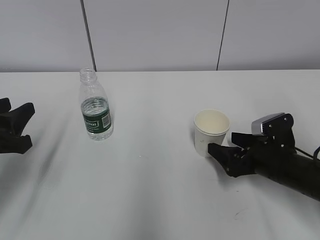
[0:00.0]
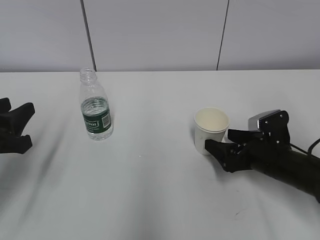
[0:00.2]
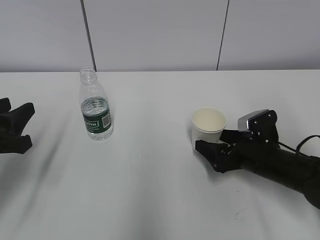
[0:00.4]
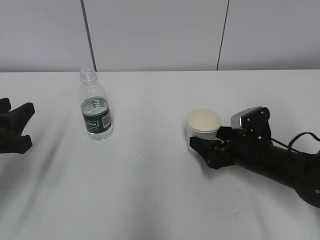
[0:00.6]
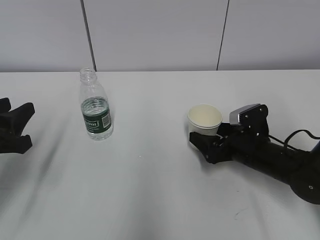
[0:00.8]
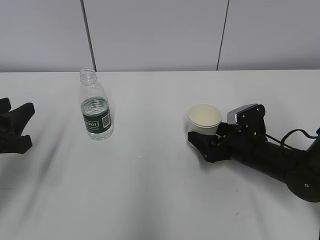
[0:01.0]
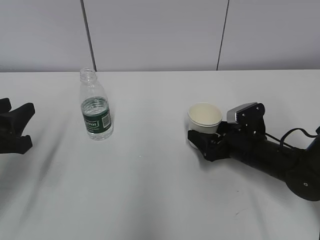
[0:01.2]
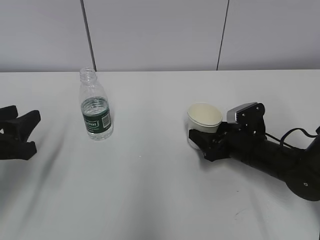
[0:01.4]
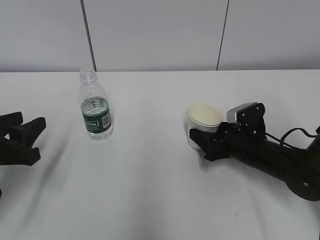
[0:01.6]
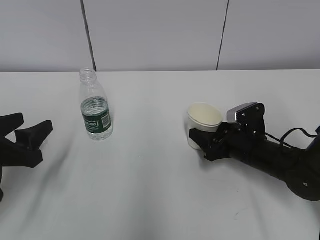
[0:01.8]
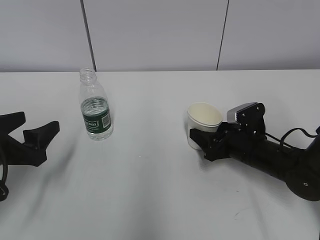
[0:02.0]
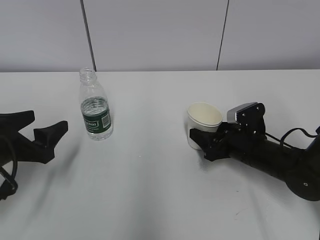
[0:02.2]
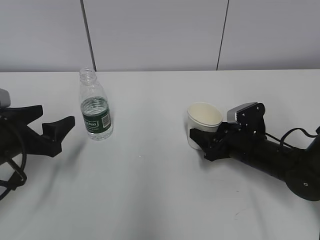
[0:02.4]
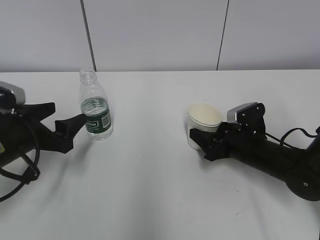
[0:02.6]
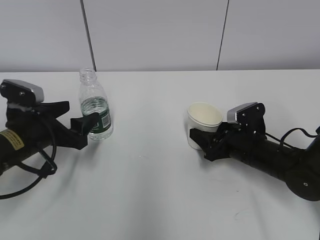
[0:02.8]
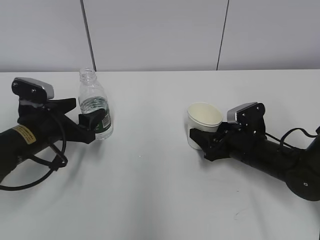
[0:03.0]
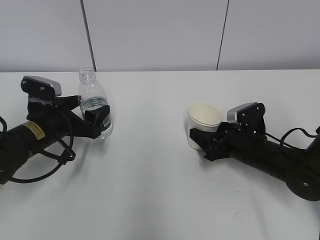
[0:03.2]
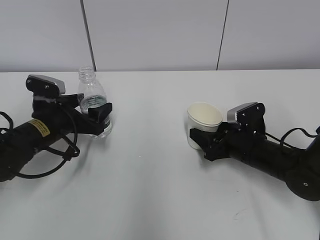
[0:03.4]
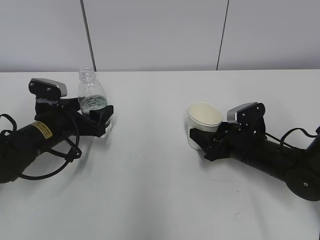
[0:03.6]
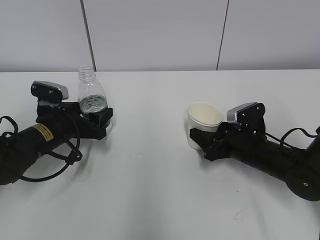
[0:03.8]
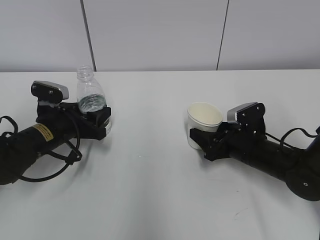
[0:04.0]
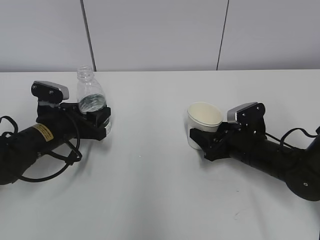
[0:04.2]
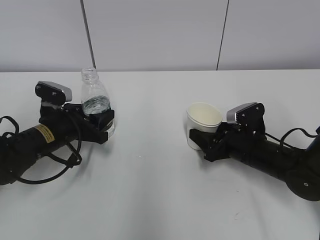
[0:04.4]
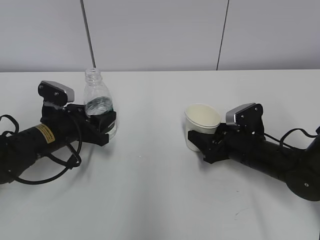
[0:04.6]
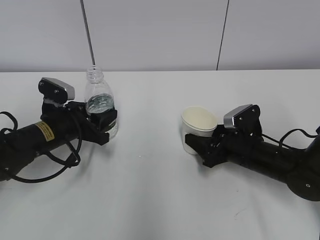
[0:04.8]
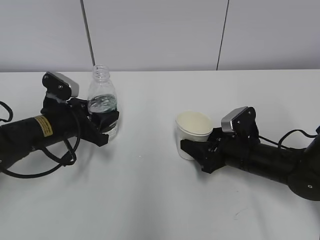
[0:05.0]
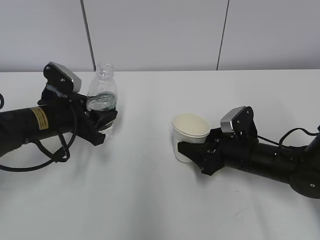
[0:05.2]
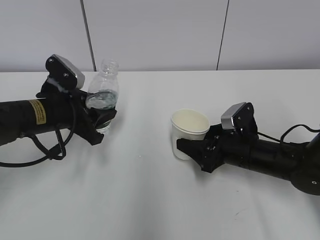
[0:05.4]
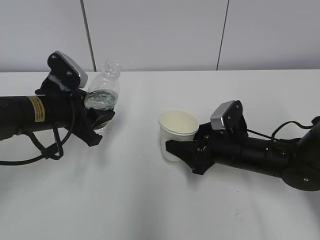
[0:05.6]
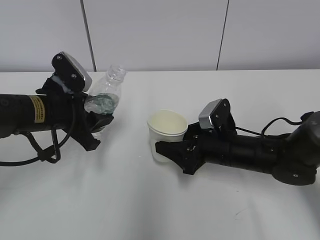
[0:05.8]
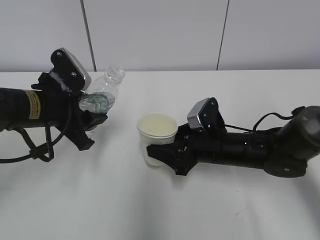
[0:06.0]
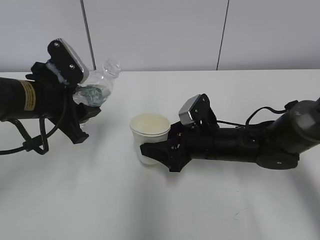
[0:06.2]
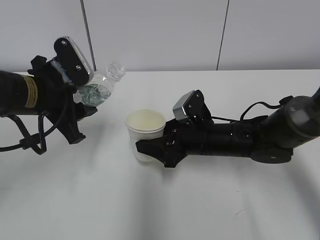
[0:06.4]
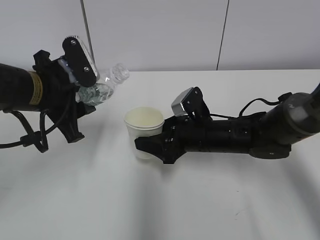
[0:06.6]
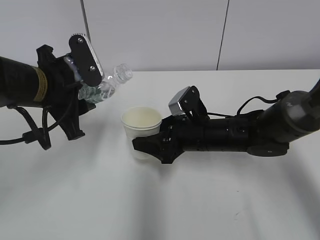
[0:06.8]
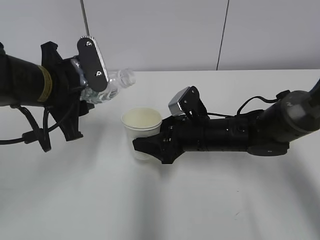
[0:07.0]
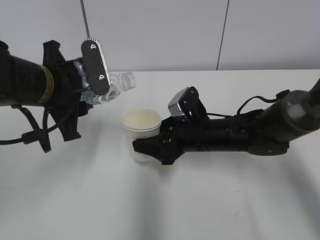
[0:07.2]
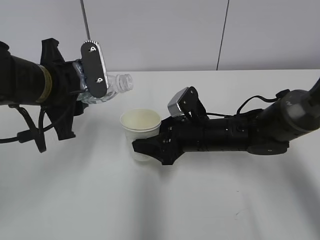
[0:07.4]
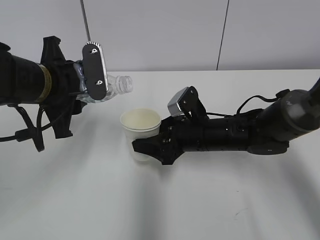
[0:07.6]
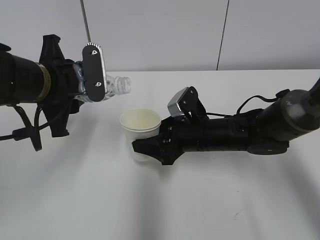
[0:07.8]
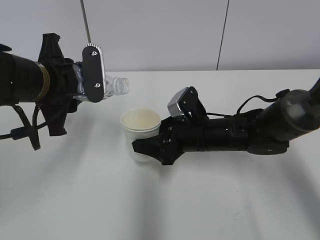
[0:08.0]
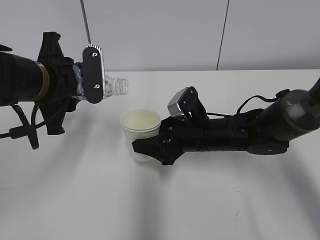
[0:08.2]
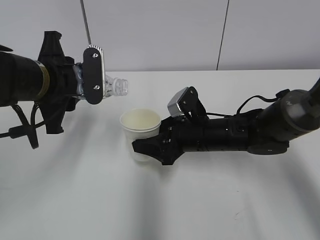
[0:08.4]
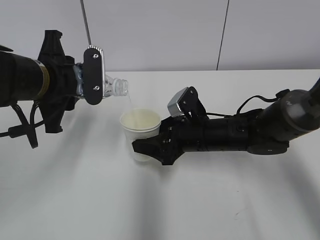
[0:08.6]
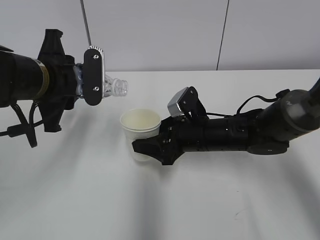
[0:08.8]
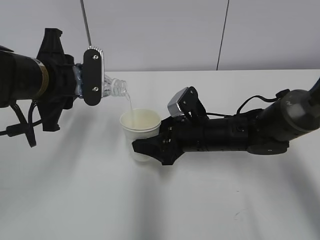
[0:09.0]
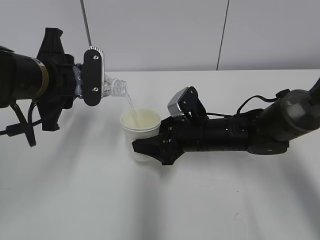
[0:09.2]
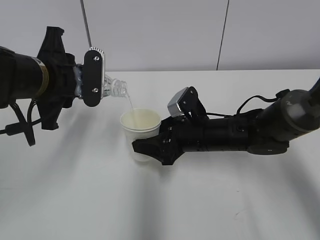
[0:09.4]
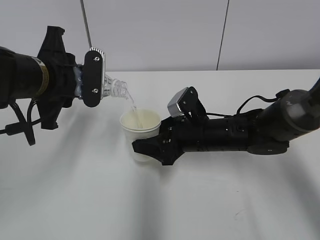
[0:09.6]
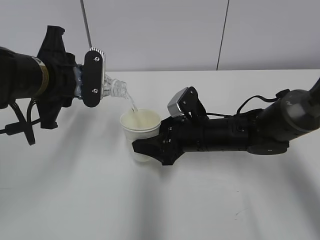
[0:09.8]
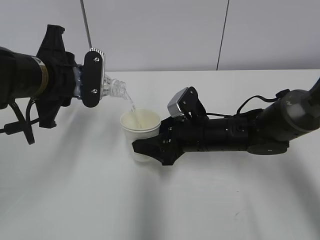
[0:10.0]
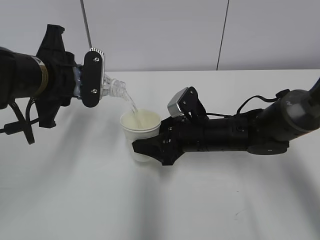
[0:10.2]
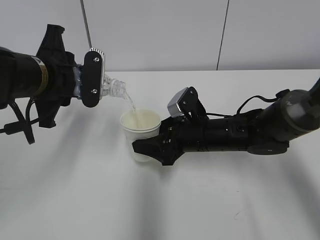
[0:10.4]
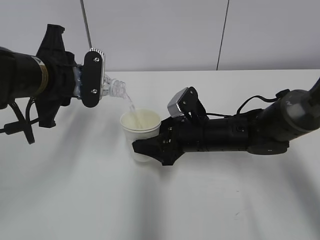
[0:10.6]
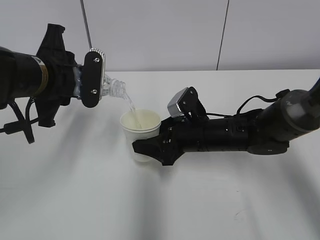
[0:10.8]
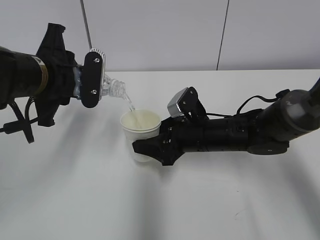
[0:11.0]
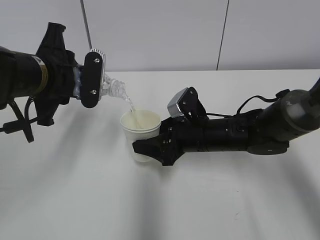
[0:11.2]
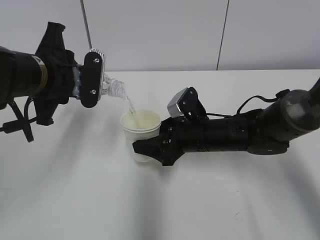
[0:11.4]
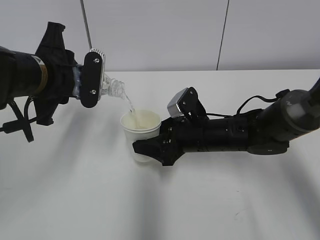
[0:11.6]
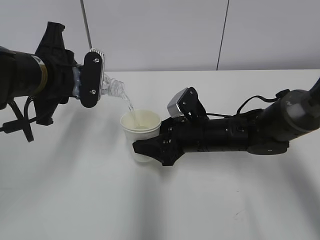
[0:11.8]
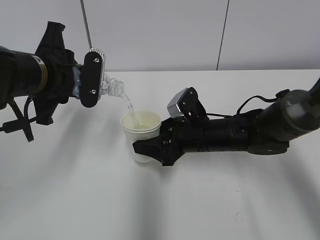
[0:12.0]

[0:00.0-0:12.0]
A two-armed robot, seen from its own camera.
Step, 0:00.0 to 0:02.4: Grab the water bottle with the left hand.
Step, 0:03.0 to 0:05.6: Lift the paper cup with the right hand.
Step, 0:05.8 to 0:09.8: Fill water with the right hand.
Step, 0:05.8 to 0:09.8: Pour water with the left hand.
0:00.0 to 0:01.6: The right gripper travels forward by about 5 cm, and closes.
0:01.6 to 0:03.0: The left gripper is displaced forward and to the right by approximately 10 cm, and opens up.
0:03.0 to 0:04.4: The left gripper closes.
0:04.4 to 0:06.0: The left gripper travels upward by about 10 cm; the right gripper travels to the left by approximately 5 cm.
0:06.0 to 0:07.6: The left gripper goes approximately 5 cm upward.
0:07.6 to 0:10.4: There are only small adjustments of the grippers.
0:10.4 to 0:12.0: Both grippers stay about where they are.

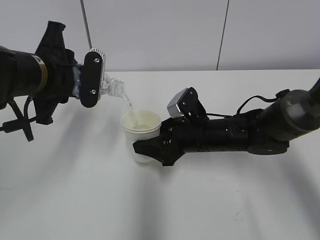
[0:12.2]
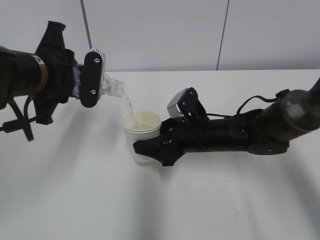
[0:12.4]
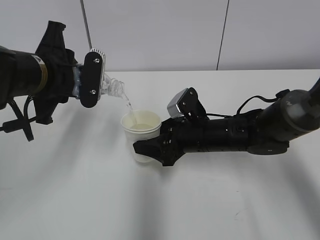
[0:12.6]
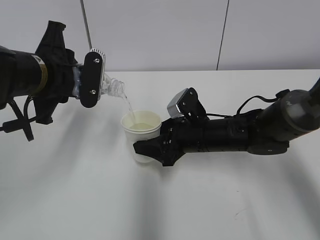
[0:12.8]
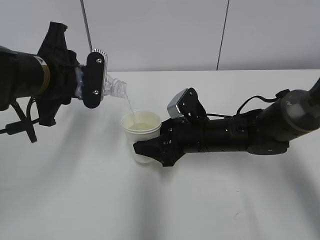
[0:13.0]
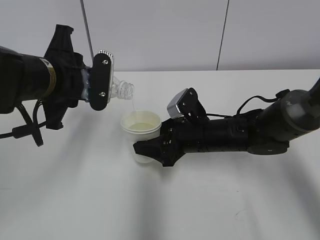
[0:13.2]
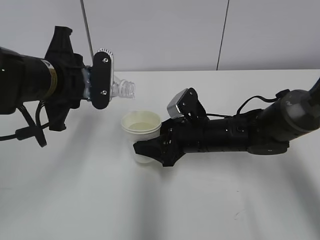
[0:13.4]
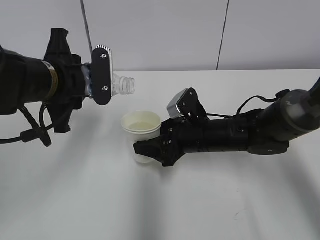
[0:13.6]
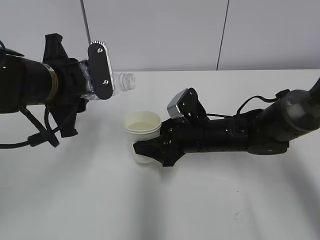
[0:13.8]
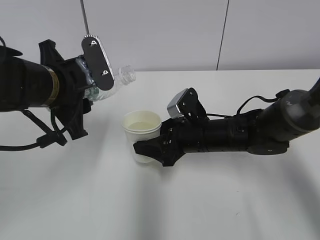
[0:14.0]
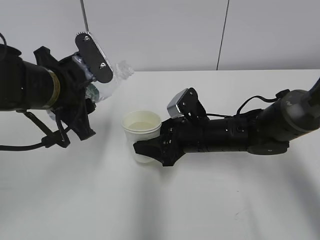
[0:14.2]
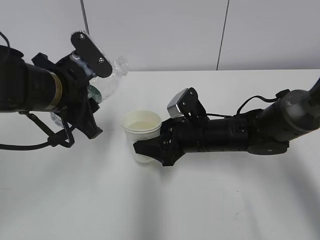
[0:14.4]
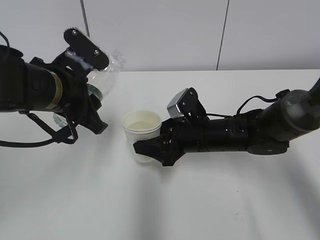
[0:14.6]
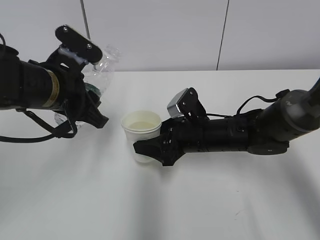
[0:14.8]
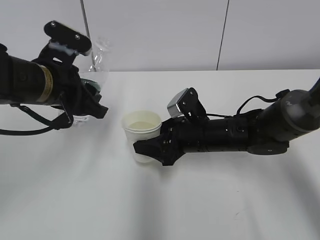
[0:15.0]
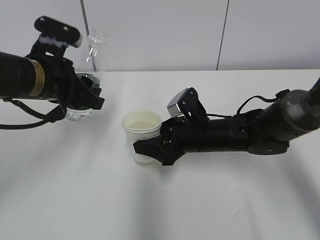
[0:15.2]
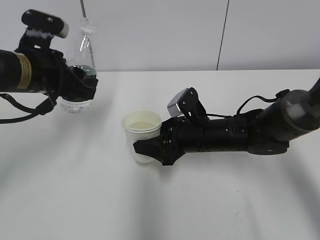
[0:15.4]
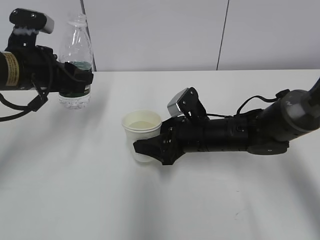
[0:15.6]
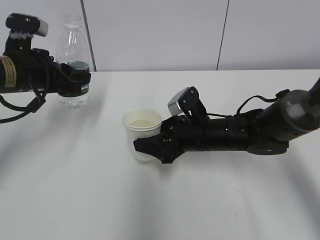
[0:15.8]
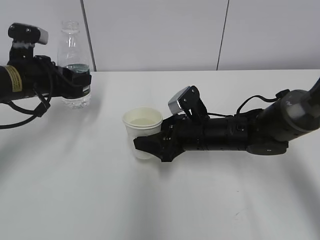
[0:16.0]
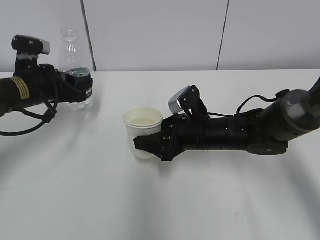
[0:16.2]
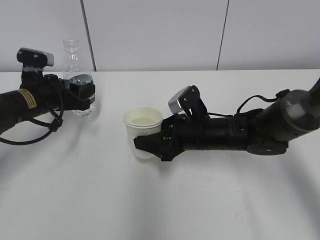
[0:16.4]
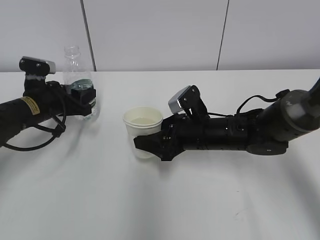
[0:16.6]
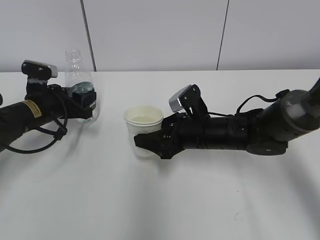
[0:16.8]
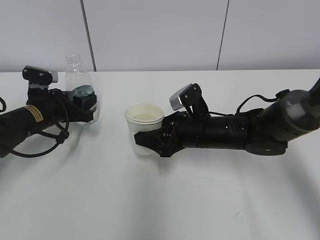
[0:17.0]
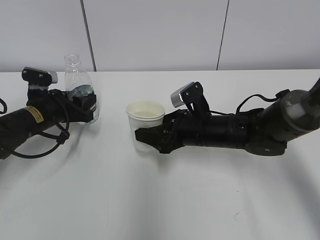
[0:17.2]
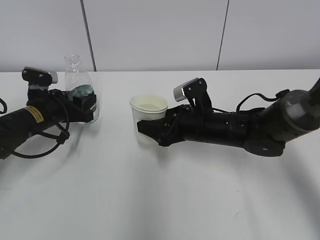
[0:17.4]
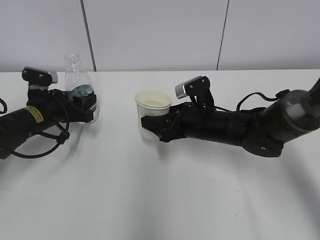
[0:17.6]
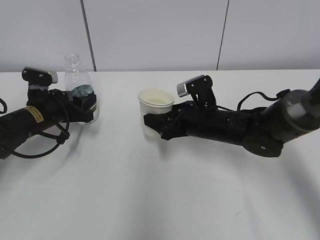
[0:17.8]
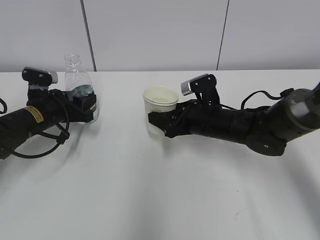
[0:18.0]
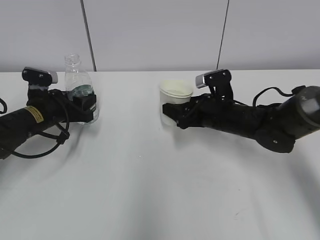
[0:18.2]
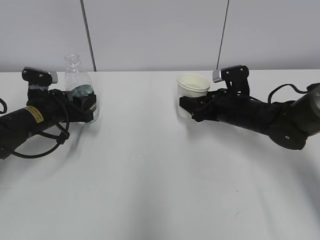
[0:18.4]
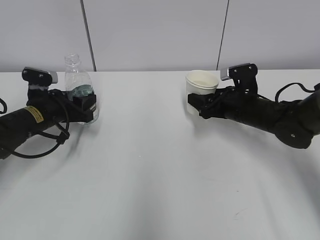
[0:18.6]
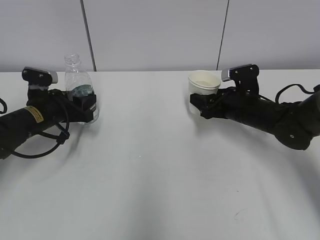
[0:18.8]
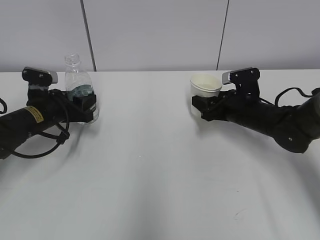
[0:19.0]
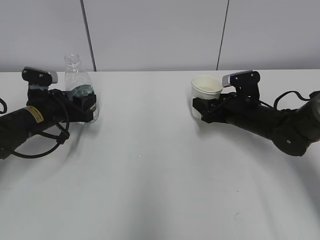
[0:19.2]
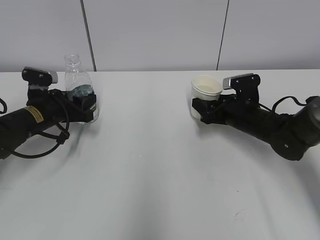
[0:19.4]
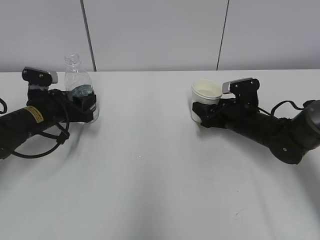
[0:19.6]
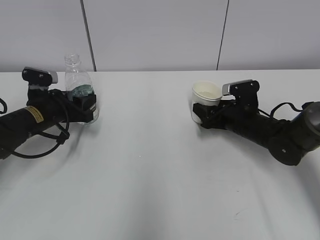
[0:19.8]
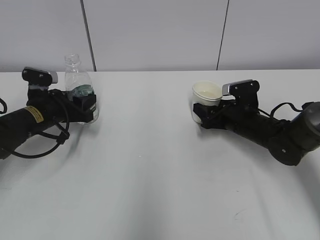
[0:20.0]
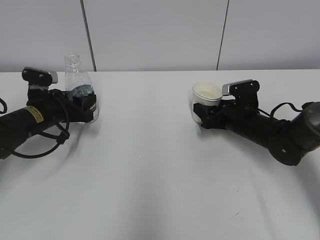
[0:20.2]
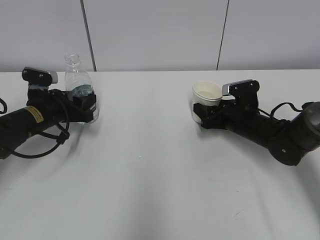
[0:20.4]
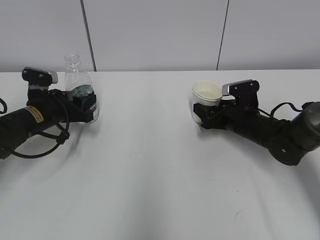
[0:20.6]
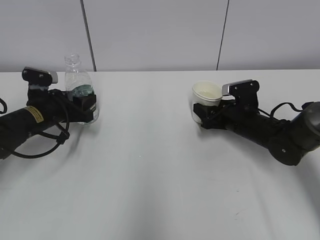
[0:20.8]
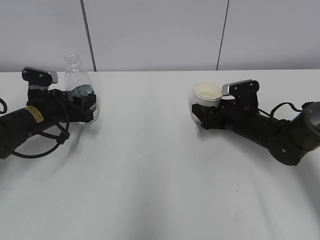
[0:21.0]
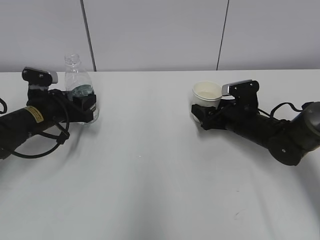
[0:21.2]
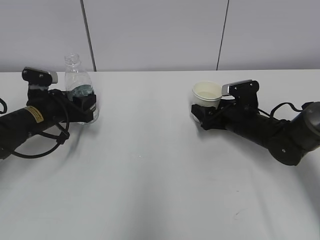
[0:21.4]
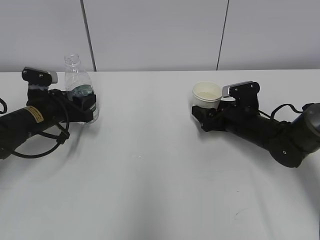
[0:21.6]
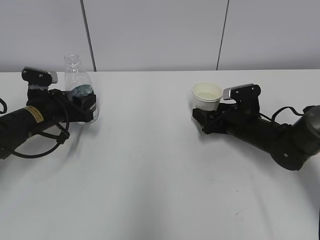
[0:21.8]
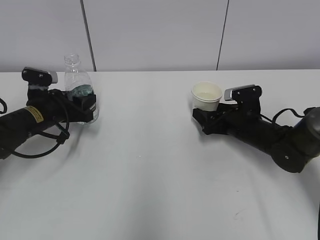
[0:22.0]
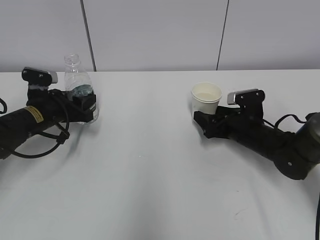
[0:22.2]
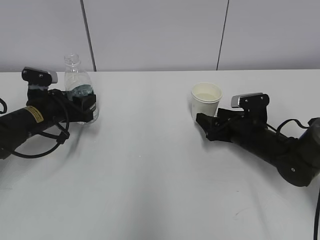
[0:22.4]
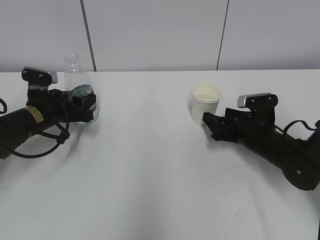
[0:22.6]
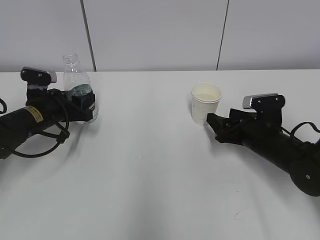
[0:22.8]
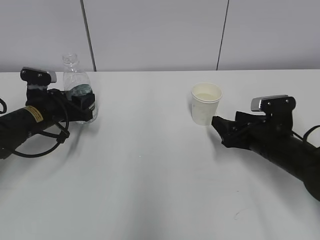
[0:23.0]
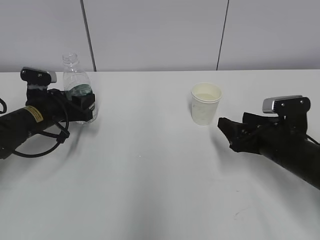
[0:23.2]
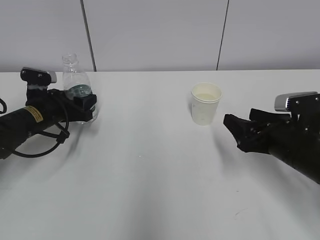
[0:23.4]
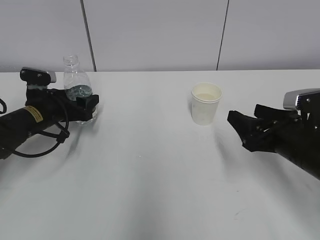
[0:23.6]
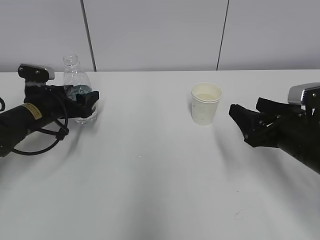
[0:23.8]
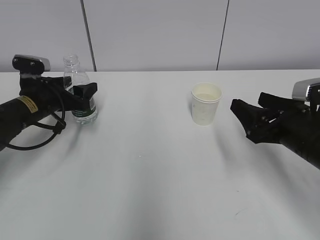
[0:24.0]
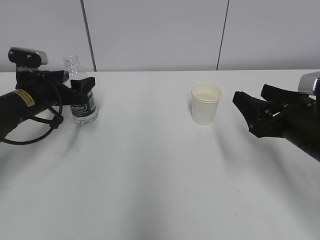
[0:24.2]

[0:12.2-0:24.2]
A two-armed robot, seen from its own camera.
0:12.2 to 0:13.8: The grippers stay close to where they were, moving slightly.
0:15.2 to 0:16.6: The left gripper travels downward, forward and to the left by roughly 15 cm.
0:16.6 to 0:18.2: The right gripper changes place by roughly 5 cm.
0:18.2 to 0:19.8: The right gripper heads to the right, covering approximately 5 cm.
0:21.2 to 0:22.6: The grippers move only a little.
0:22.6 to 0:24.2: The left gripper opens. Meanwhile the right gripper travels upward and backward by approximately 15 cm.
